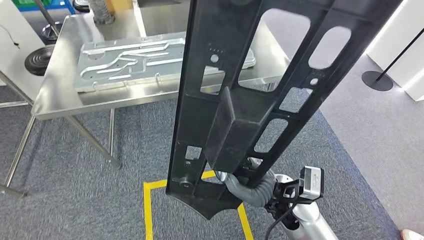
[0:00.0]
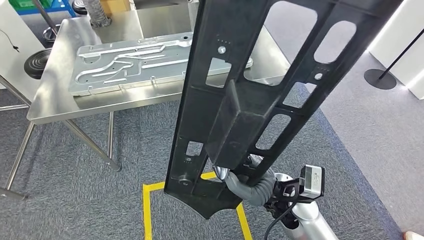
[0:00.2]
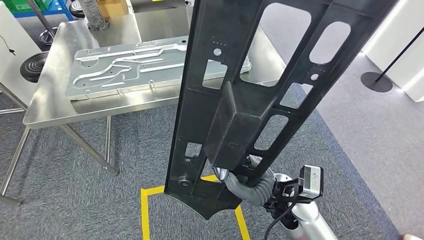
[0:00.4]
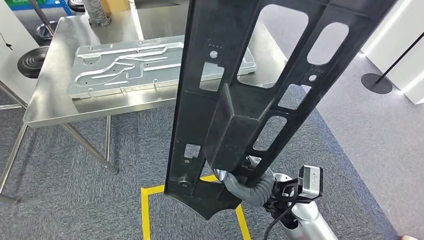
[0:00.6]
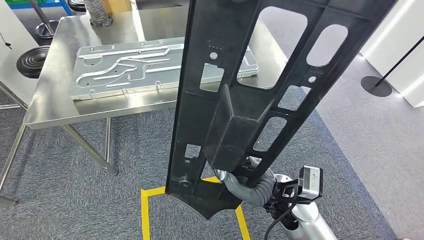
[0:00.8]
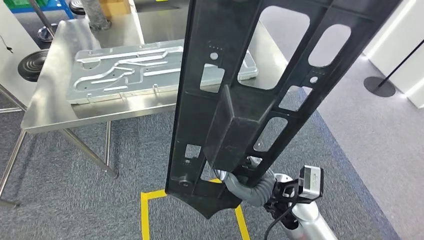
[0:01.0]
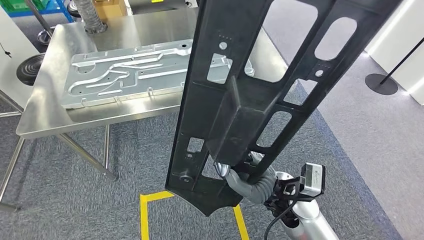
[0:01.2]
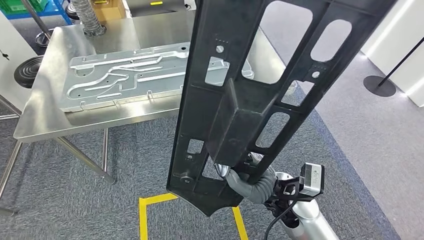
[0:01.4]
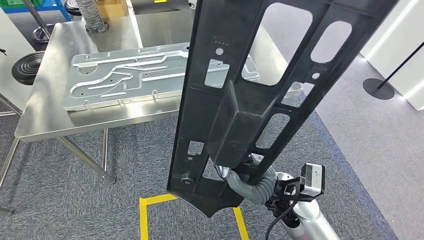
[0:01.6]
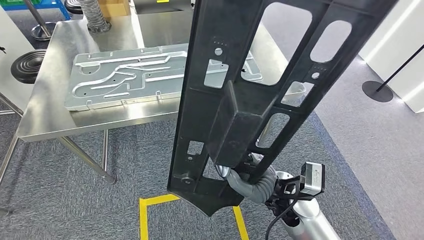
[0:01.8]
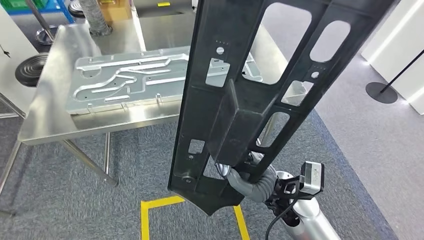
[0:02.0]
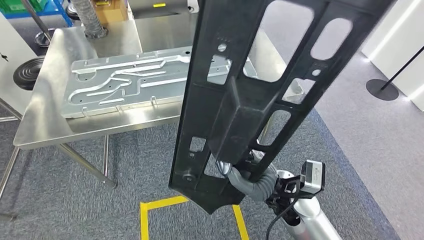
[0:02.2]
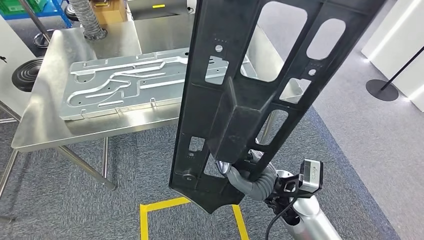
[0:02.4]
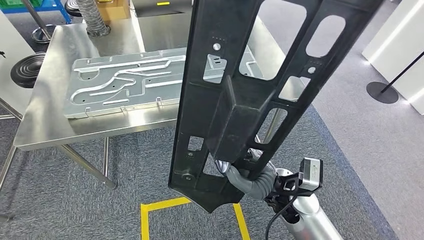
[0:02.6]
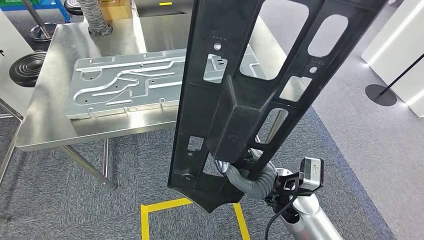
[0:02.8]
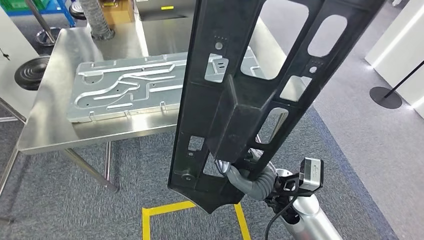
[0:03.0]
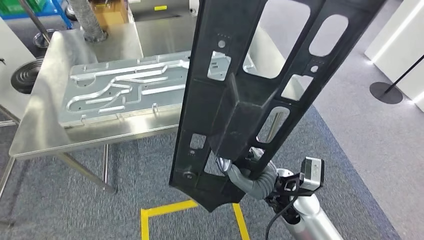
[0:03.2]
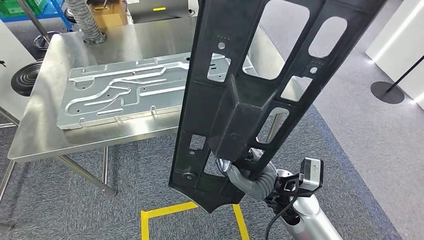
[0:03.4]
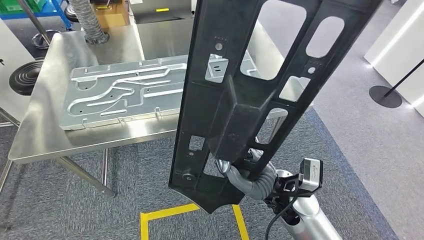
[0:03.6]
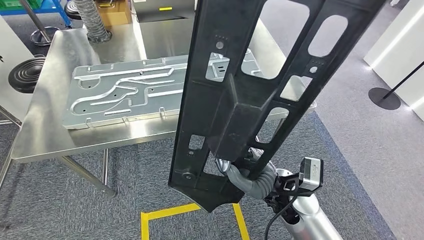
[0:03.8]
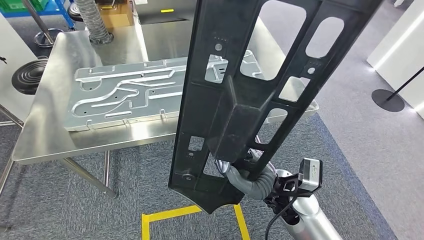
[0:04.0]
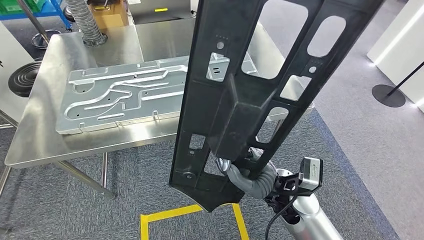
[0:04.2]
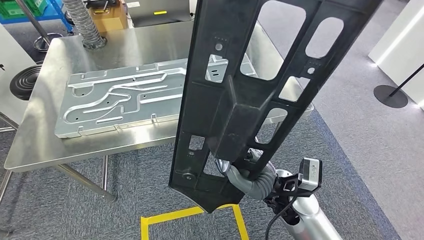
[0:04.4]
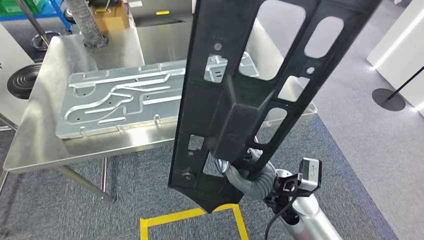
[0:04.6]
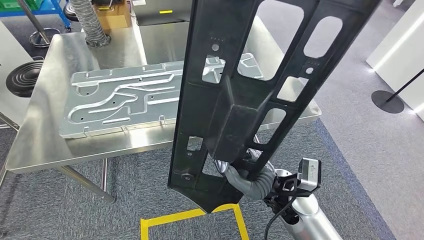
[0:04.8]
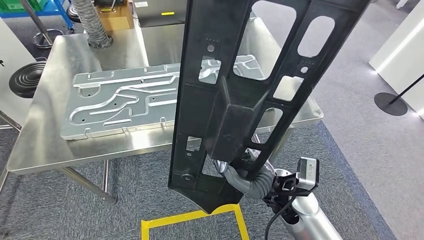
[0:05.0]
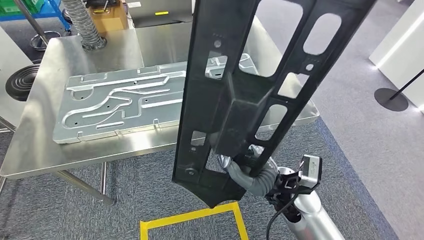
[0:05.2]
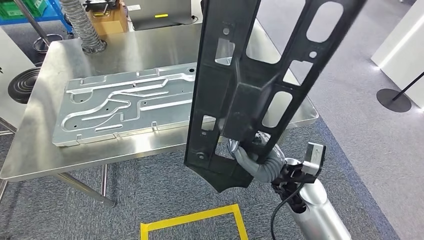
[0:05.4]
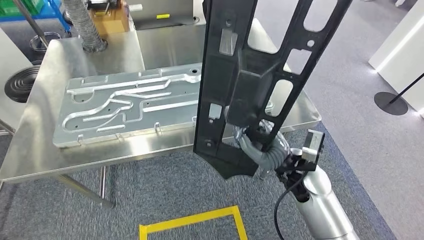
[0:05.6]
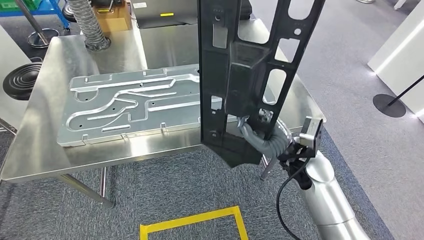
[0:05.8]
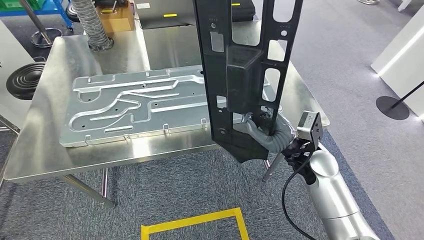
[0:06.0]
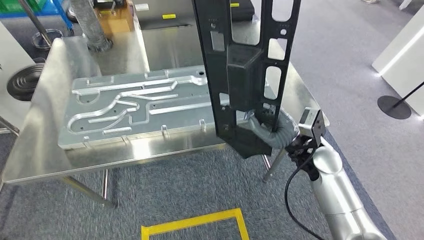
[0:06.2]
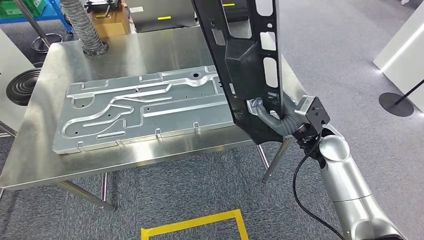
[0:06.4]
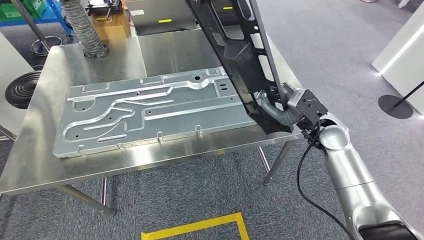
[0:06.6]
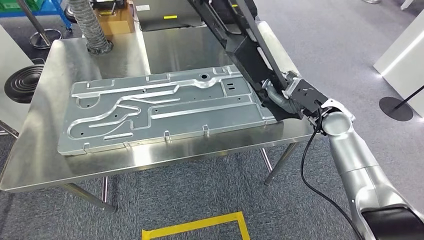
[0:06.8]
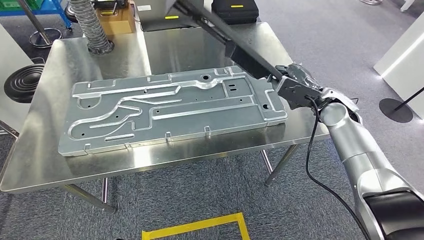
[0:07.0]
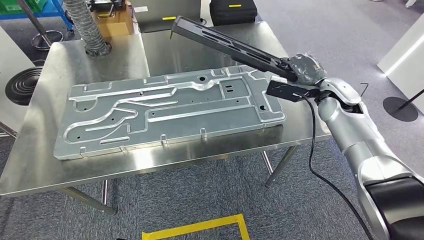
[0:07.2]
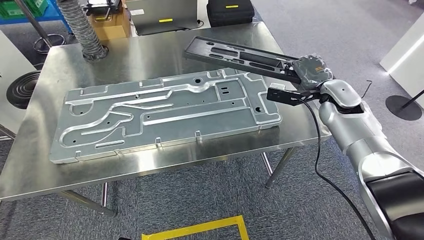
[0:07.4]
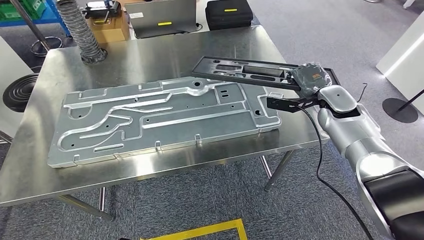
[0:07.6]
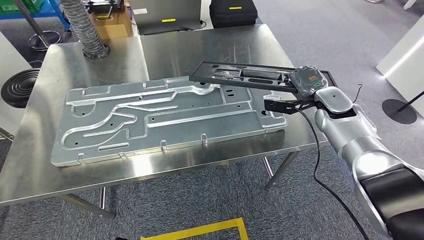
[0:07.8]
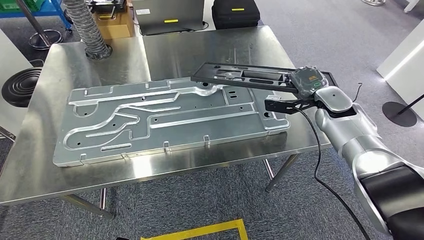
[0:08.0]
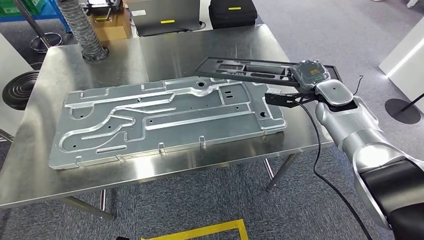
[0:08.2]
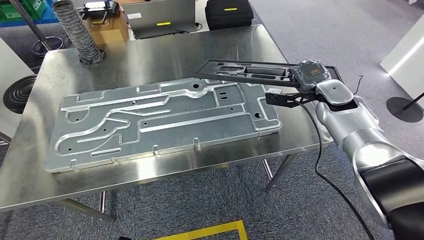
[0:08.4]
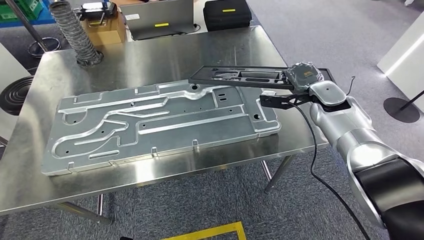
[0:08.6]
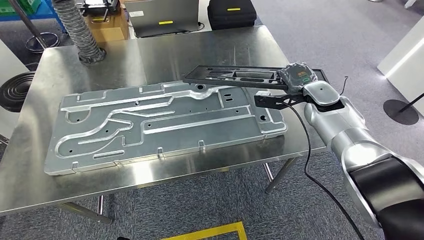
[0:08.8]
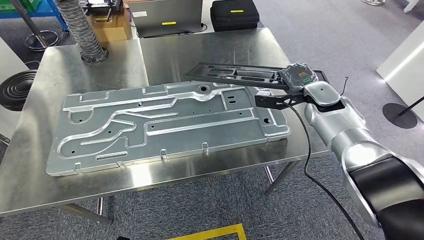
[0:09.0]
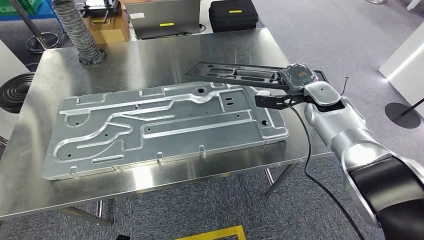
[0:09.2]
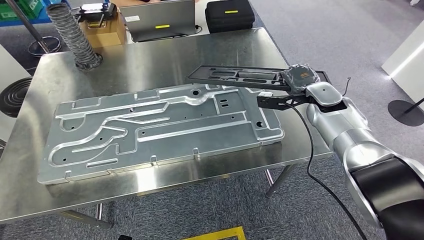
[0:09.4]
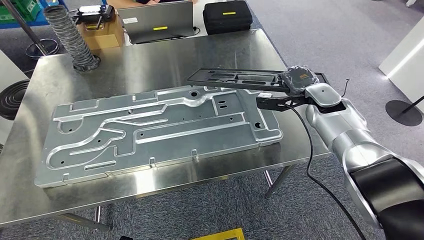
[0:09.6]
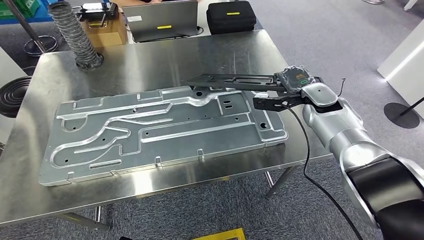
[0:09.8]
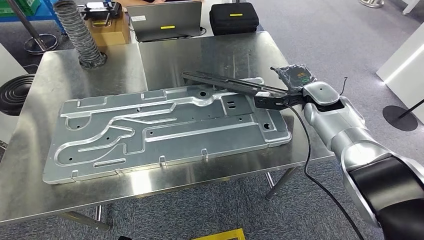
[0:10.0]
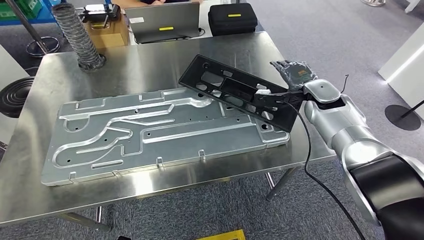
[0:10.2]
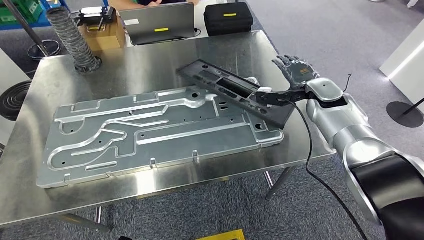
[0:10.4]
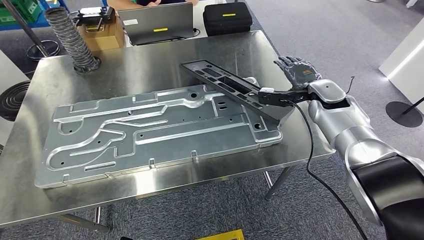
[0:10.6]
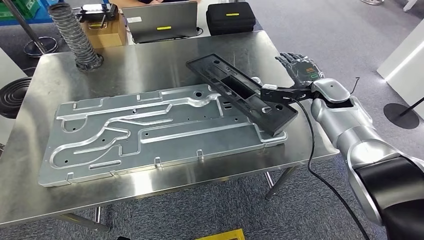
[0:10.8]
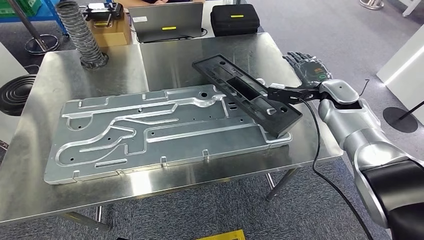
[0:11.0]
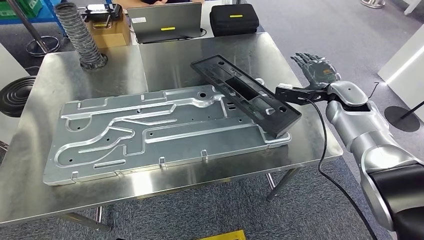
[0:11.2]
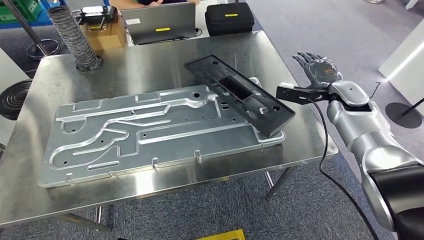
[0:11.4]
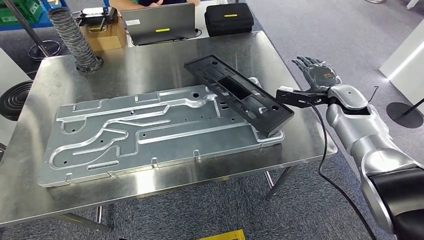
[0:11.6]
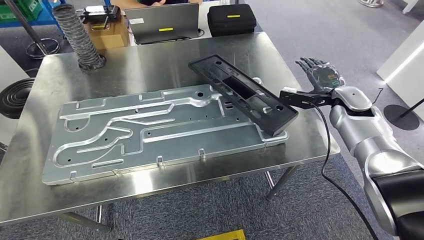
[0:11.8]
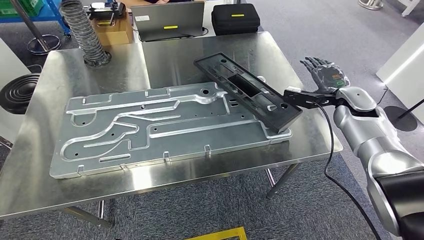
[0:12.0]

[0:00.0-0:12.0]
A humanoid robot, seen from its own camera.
Step, 0:00.0 to 0:07.4: Move the large material to the workbench.
Step, 0:07.6 to 0:12.0: Insert the large material into the corresponding slot on the workbench.

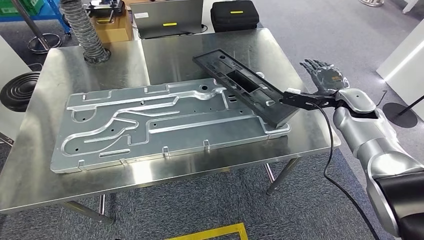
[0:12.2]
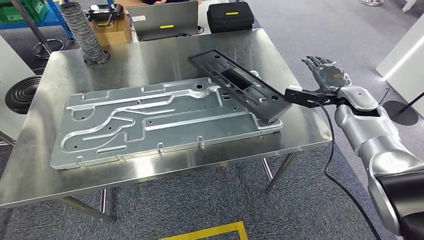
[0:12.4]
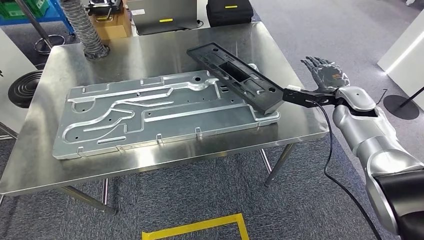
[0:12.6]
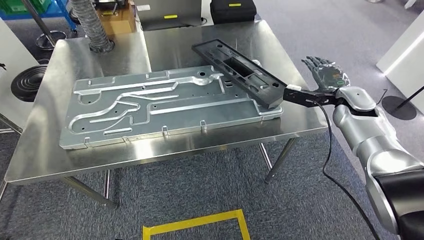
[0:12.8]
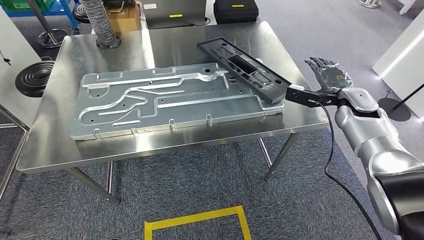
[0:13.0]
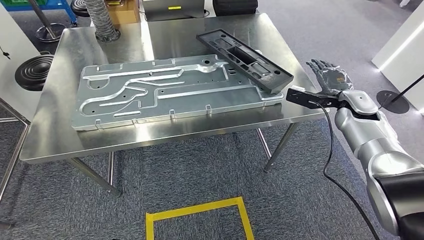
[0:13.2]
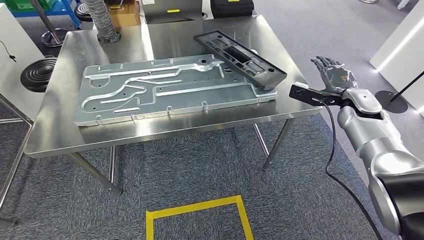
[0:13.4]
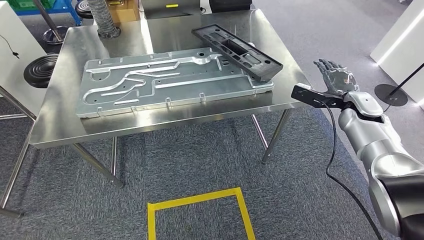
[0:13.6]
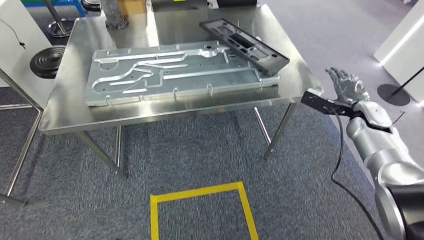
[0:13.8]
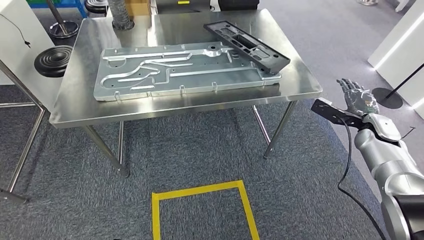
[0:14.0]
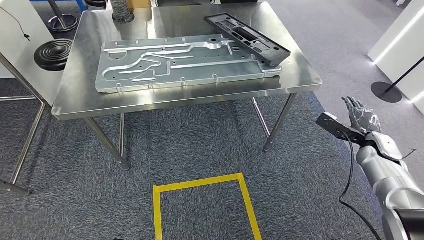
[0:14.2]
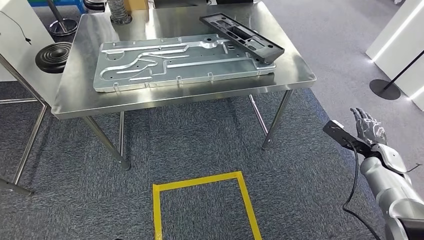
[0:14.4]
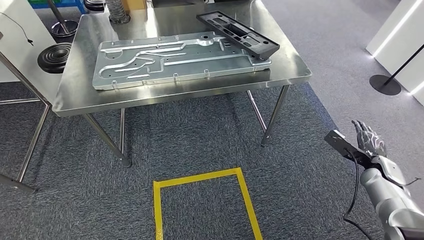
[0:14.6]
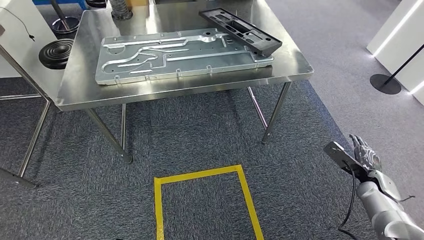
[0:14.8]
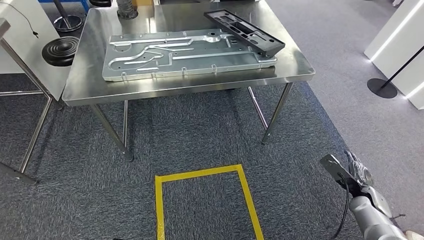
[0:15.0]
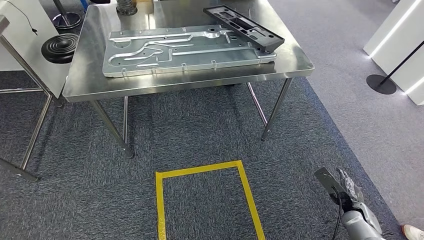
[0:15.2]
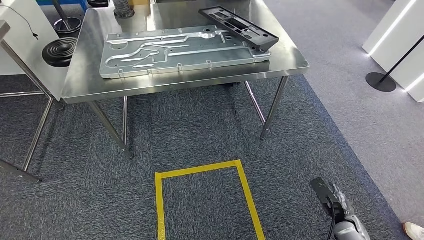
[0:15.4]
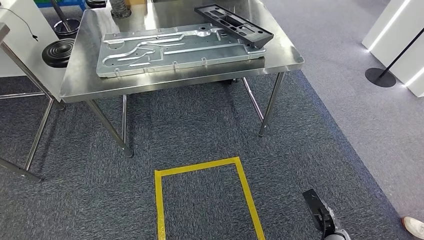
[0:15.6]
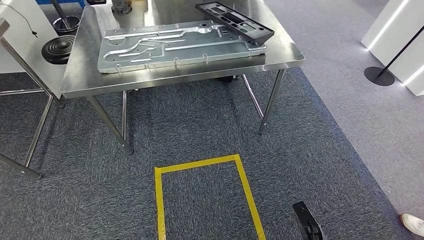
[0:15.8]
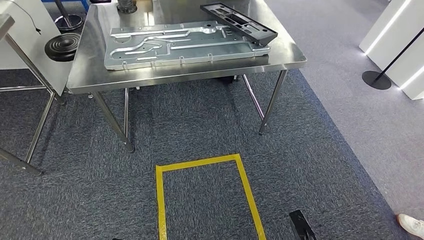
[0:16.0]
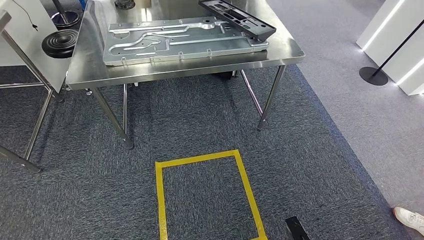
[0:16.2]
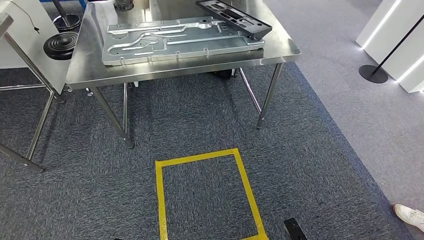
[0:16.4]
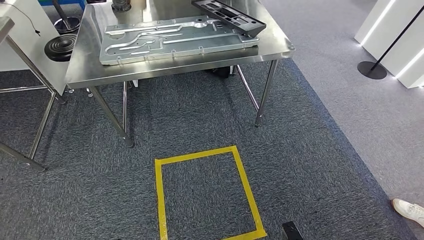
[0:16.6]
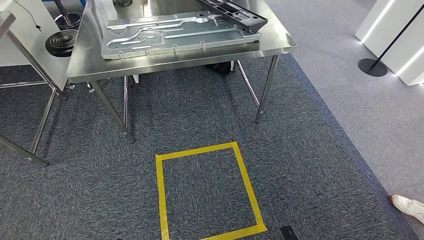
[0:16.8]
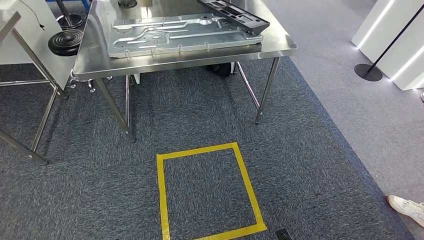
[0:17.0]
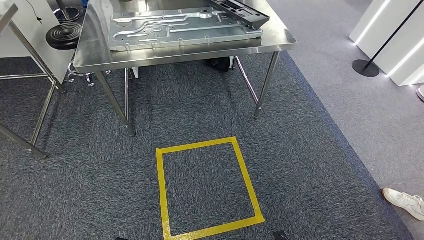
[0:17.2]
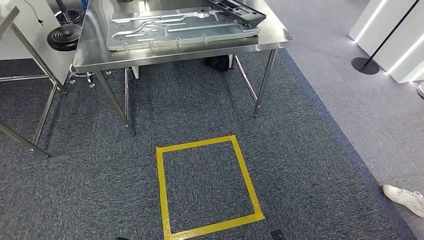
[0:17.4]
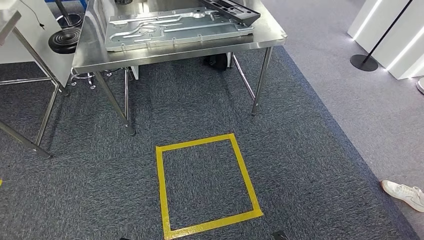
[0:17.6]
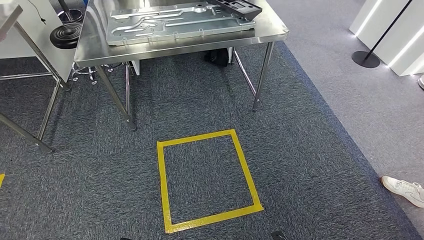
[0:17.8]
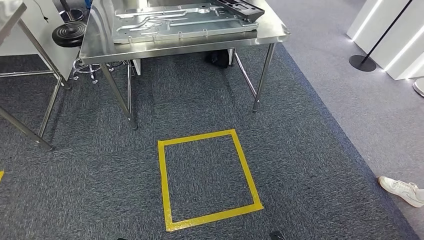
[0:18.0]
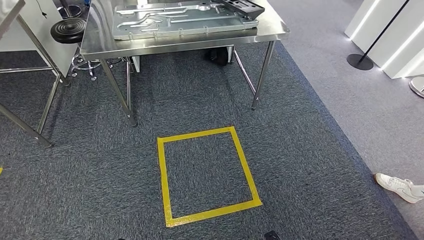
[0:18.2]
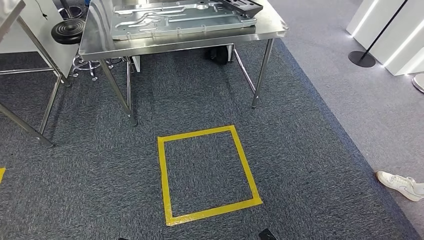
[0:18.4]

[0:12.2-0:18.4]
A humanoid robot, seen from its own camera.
Step, 0:12.2 to 0:18.4: Move to the initial position of the shelf.
